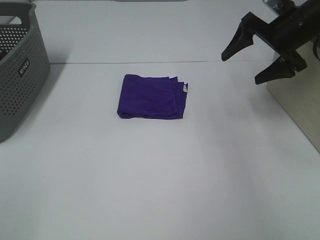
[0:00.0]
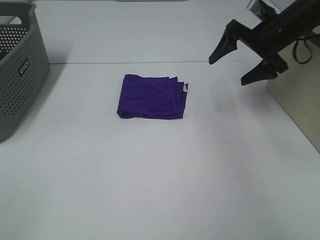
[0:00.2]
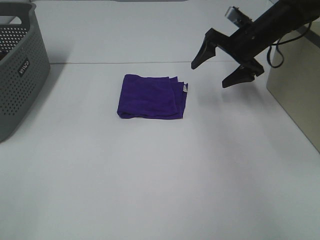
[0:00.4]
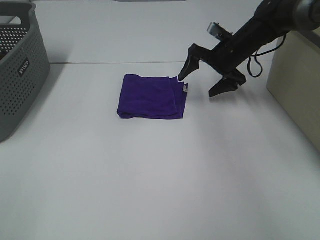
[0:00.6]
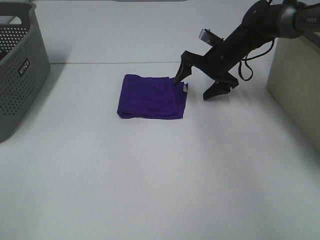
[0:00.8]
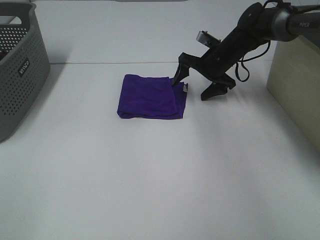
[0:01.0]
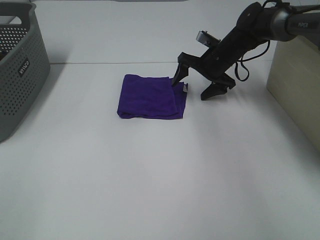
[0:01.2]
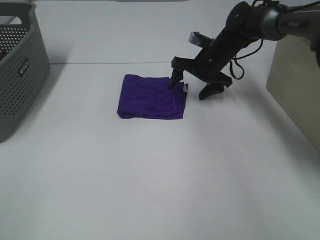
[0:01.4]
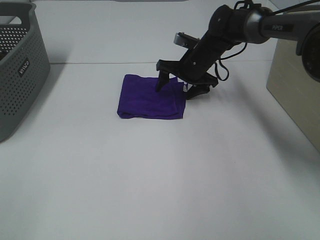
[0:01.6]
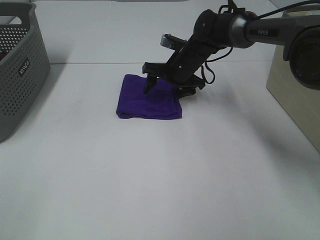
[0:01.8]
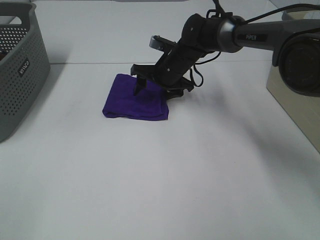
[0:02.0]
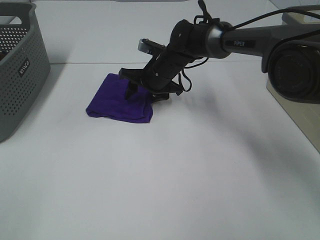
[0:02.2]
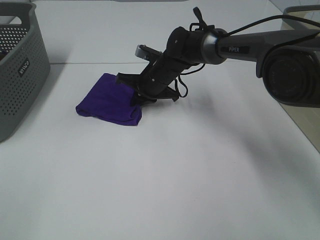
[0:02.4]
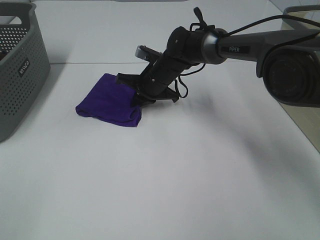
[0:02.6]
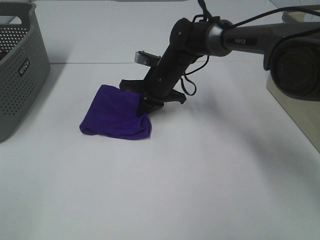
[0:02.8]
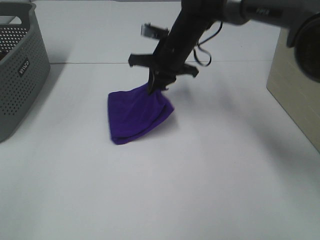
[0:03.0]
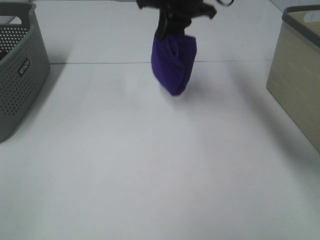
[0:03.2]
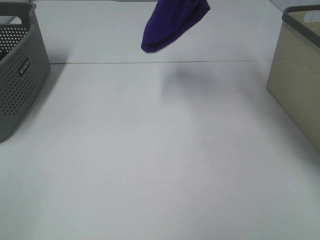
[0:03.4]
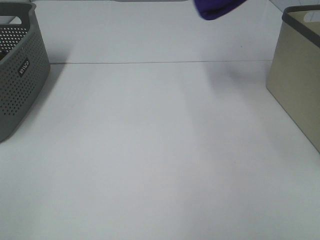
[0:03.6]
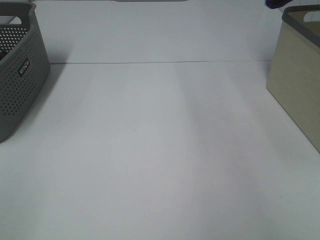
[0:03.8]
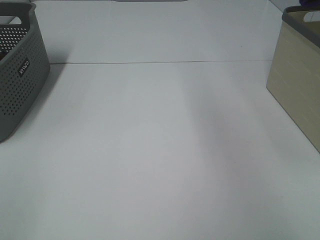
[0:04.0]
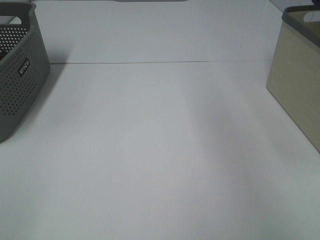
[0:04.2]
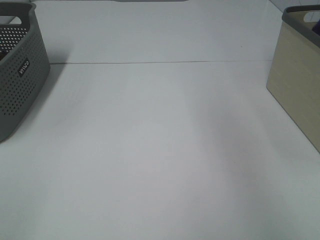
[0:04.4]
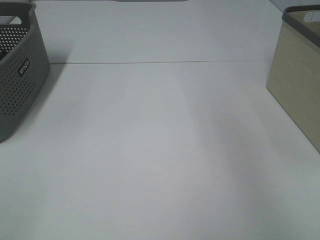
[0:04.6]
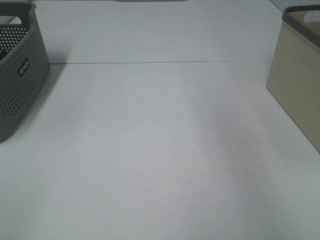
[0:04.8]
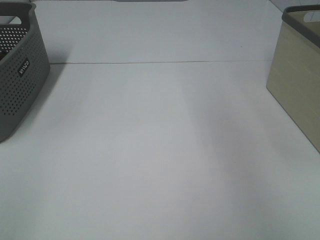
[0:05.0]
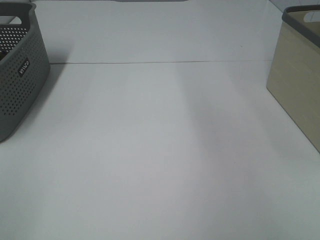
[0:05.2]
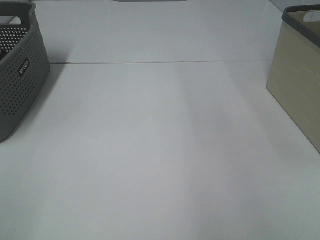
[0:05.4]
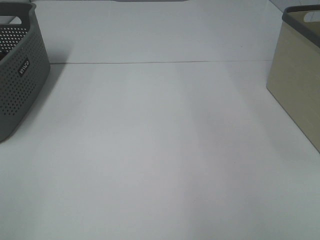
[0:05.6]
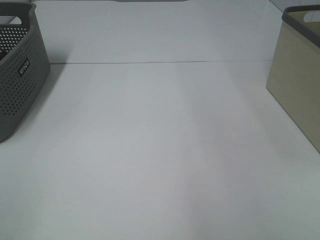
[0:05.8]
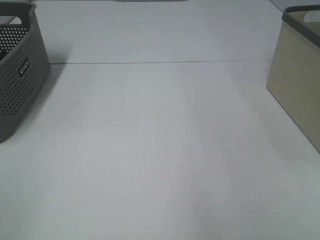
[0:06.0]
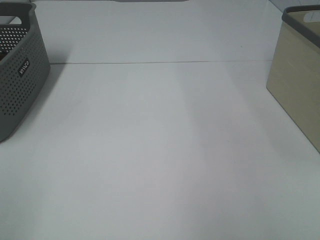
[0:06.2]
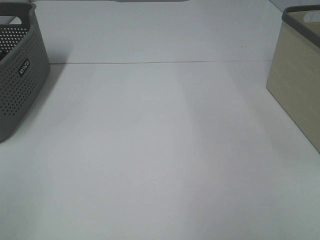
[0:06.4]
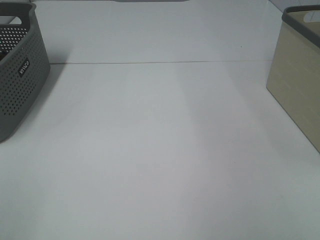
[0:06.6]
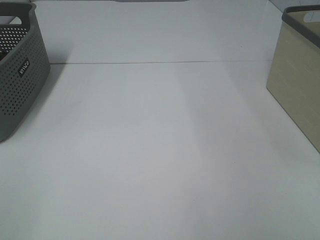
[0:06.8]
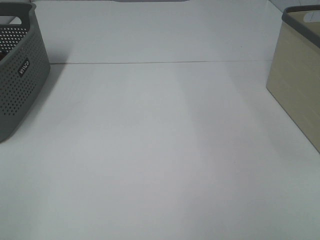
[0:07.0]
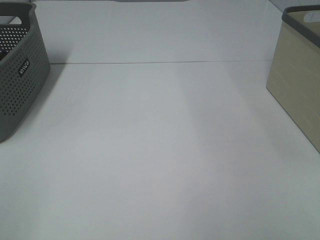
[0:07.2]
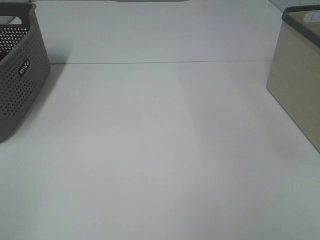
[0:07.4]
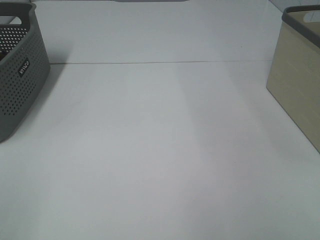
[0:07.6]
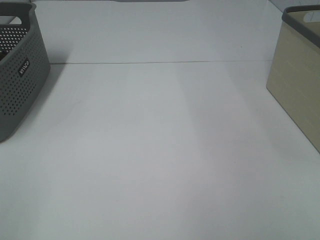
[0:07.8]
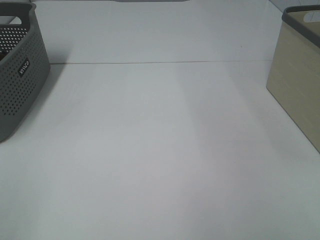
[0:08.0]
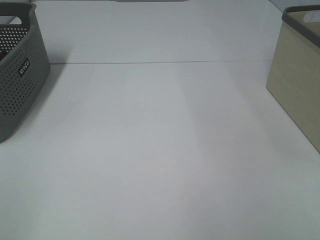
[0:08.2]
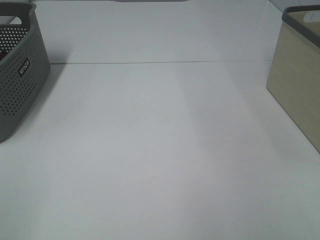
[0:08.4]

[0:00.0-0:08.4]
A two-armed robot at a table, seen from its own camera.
Step, 0:00.0 to 0:02.4: Right hand: grab the folded purple towel.
Step, 0:02.6 to 0:04.6: Right hand: place the purple towel in right basket.
0:00.0 to 0:01.4: The right gripper heads to the left, downward and forward, covering some 20 cm.
0:01.4 to 0:02.8: The right gripper heads to the left and backward, covering roughly 10 cm, and closes up.
0:02.8 to 0:04.2: The right gripper heads upward and to the right, covering approximately 50 cm.
0:07.0 to 0:08.4: Both grippers stay put.

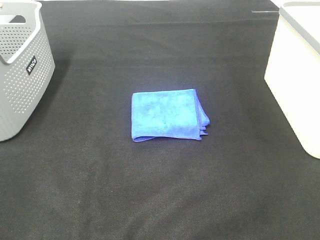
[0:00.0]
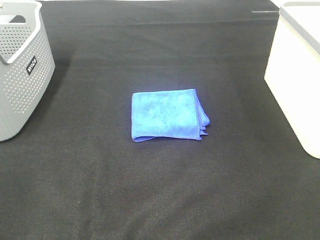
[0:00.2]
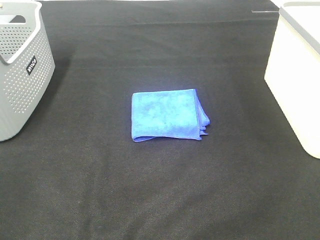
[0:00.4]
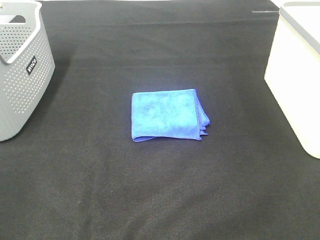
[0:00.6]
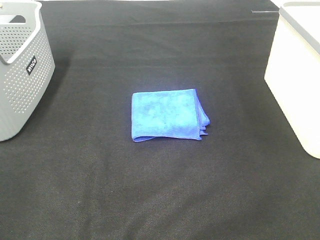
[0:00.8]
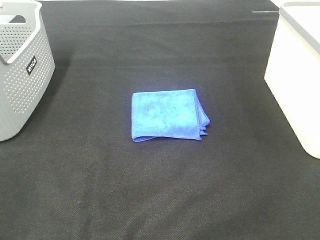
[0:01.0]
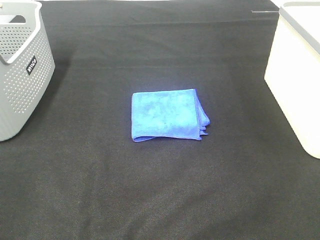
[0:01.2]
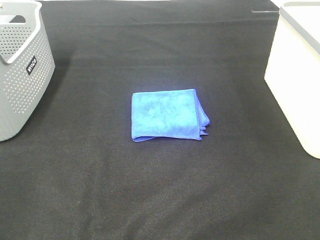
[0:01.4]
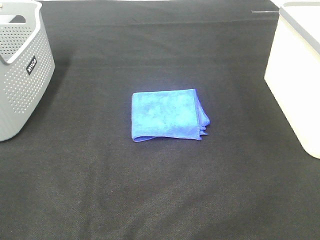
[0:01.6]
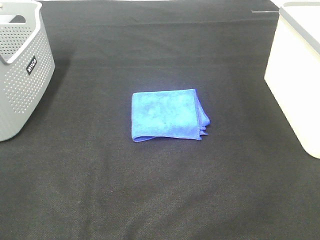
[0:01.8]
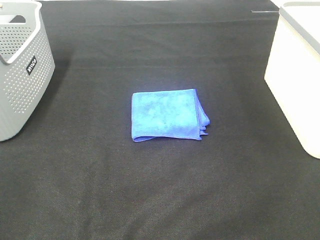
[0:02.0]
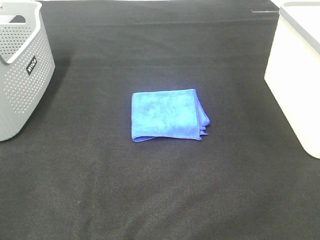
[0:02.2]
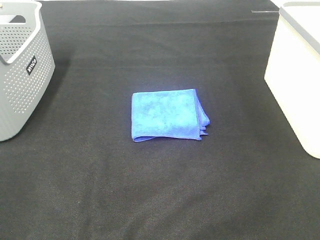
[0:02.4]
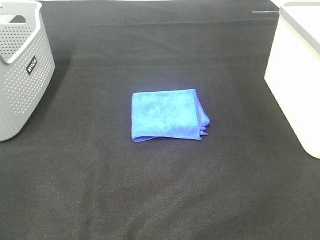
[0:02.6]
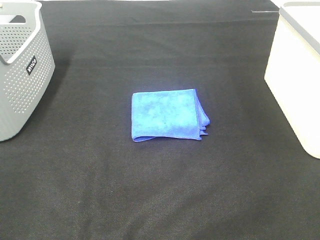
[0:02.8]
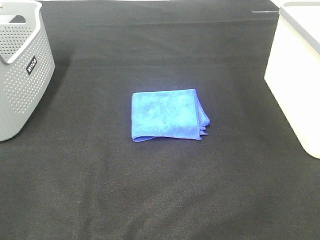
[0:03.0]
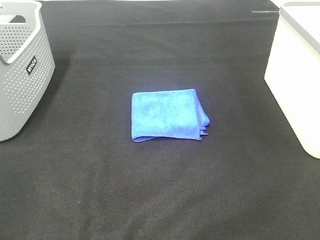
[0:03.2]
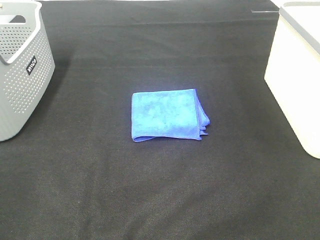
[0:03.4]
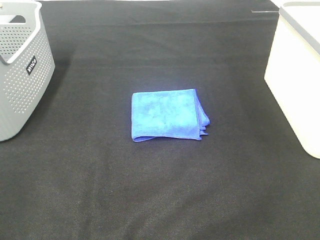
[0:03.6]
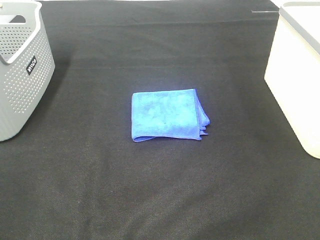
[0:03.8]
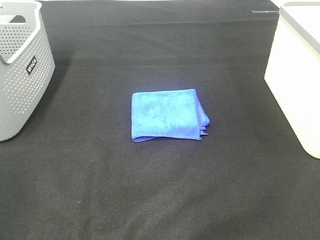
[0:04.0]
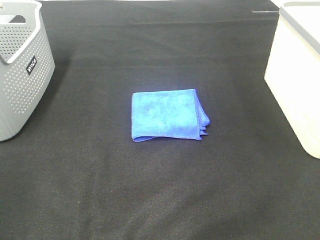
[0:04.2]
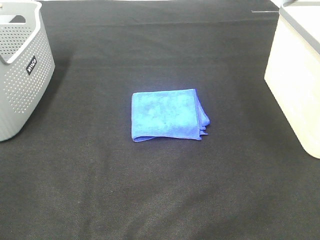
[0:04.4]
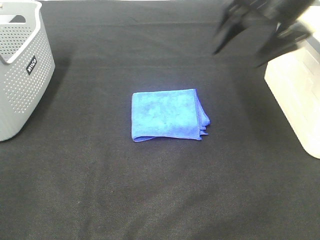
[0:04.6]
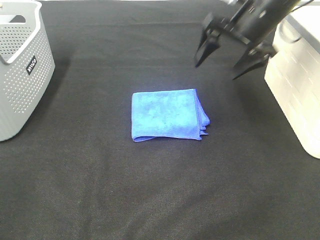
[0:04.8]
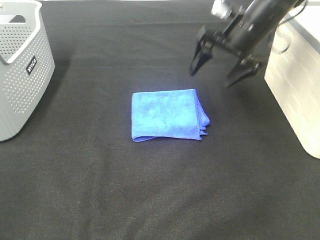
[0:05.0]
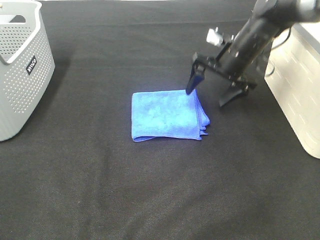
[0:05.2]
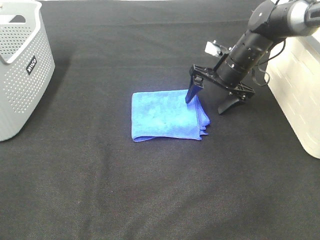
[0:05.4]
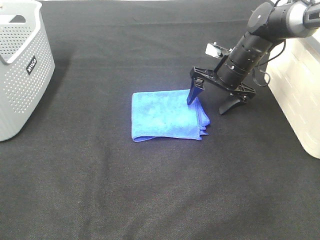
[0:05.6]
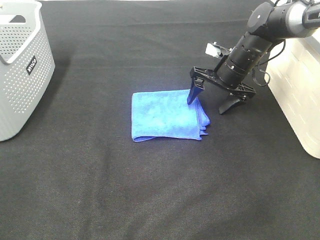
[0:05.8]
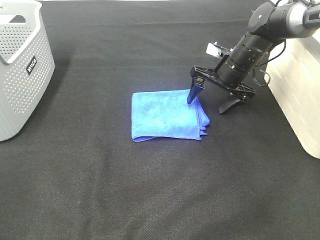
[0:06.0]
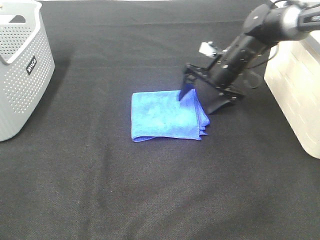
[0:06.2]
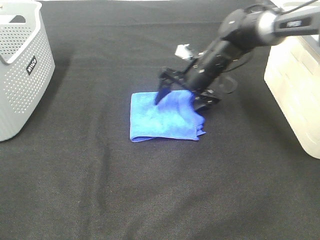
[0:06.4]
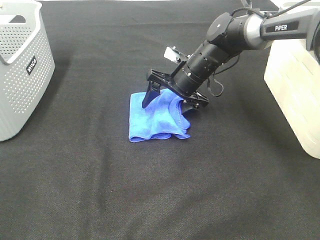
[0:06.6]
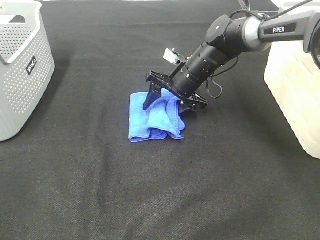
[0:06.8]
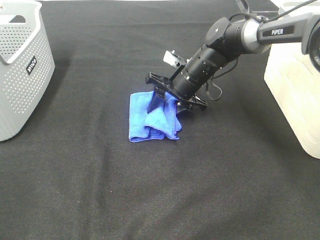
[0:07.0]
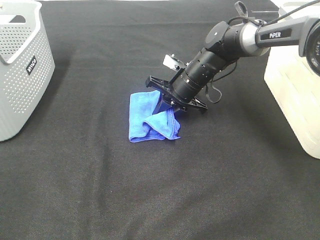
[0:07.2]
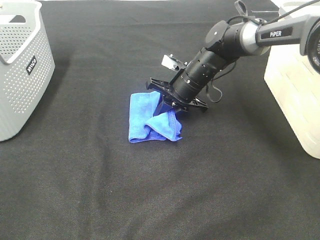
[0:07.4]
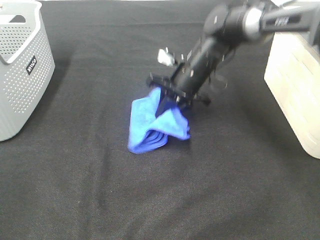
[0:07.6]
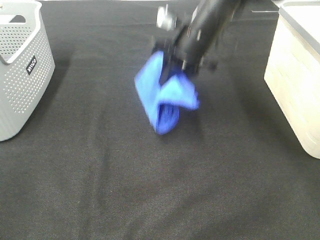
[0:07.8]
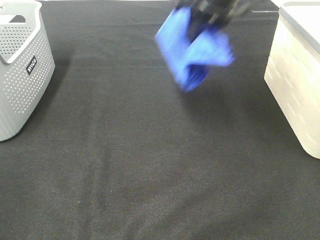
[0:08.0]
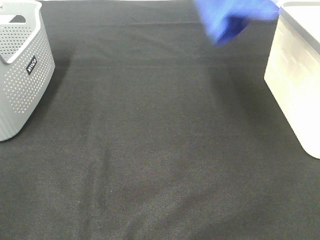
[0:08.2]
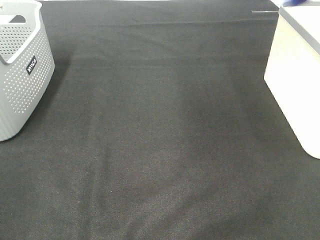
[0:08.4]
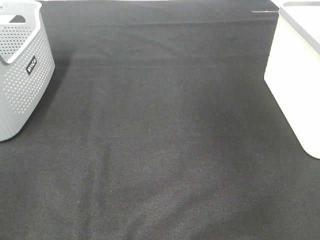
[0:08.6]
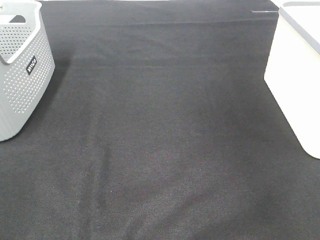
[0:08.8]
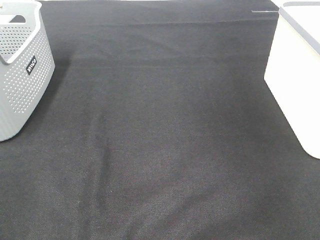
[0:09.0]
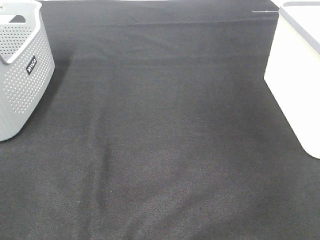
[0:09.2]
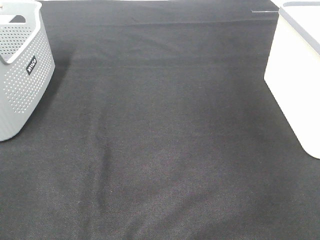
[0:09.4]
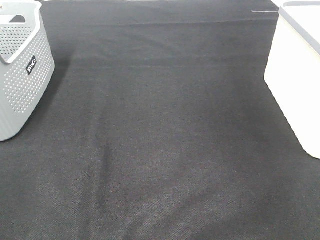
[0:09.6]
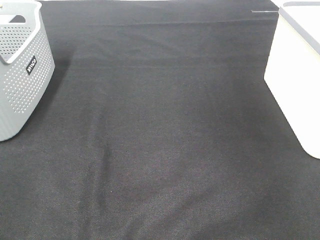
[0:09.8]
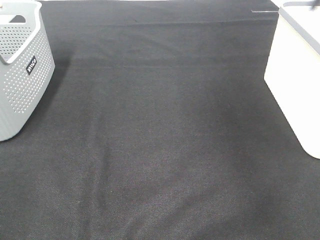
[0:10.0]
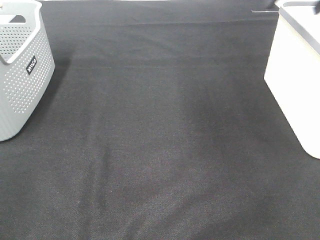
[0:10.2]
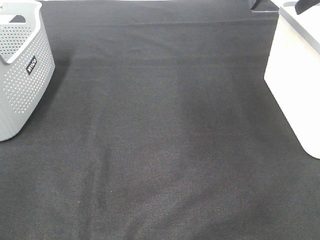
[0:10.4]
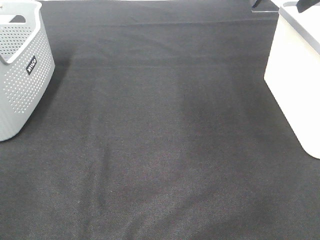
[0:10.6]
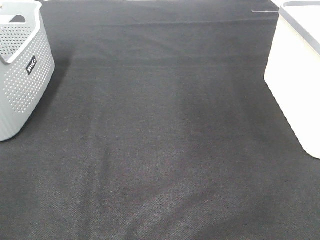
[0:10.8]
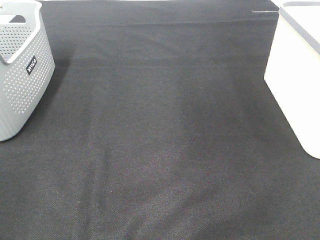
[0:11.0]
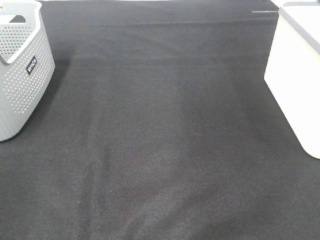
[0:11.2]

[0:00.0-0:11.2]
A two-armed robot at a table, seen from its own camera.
Step, 0:00.0 to 0:07.2: Right hand: grab the folded blue towel.
Step, 0:07.4 to 0:09.4: Right hand: place the blue towel in right basket.
0:00.0 to 0:03.2: The two grippers keep their place.
0:03.2 to 0:04.8: The right gripper is displaced forward by about 40 cm.
0:04.8 to 0:06.4: The right gripper heads downward and to the left, covering some 15 cm.
0:06.4 to 0:08.0: The right gripper heads upward, covering some 25 cm, and closes up.
0:08.0 to 0:09.6: The right gripper goes roughly 30 cm to the right, and opens up.

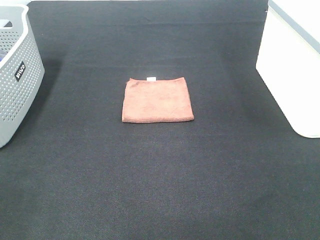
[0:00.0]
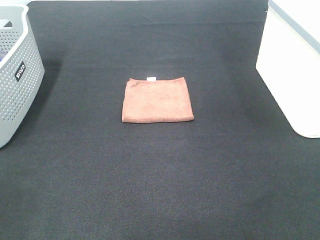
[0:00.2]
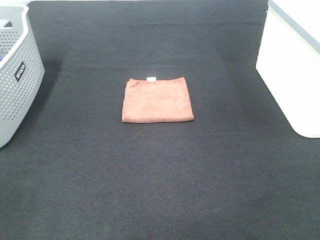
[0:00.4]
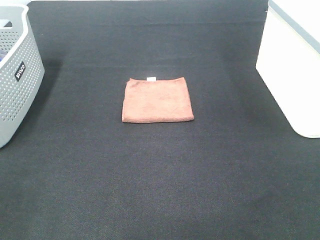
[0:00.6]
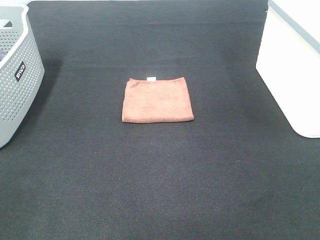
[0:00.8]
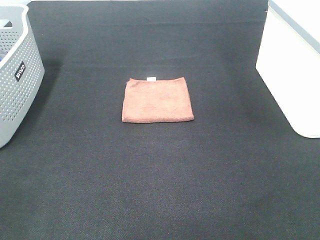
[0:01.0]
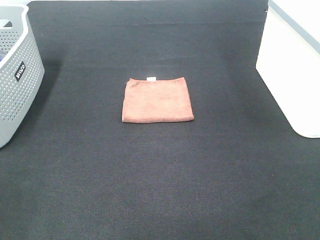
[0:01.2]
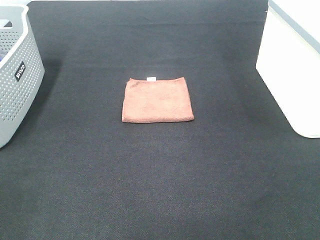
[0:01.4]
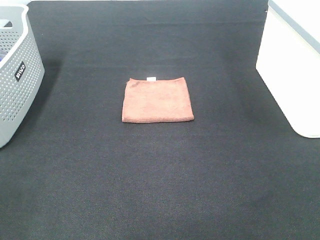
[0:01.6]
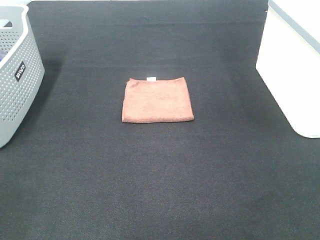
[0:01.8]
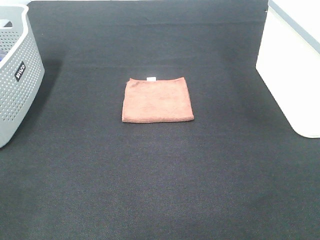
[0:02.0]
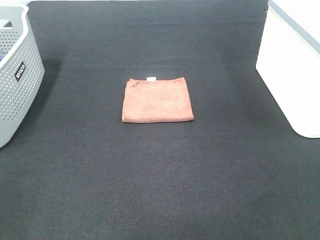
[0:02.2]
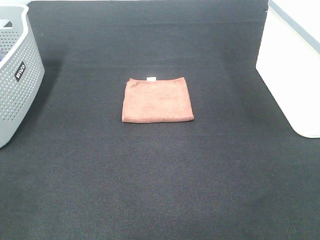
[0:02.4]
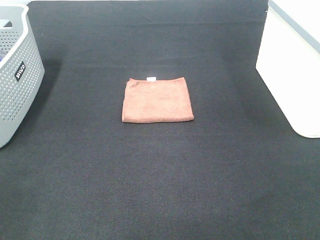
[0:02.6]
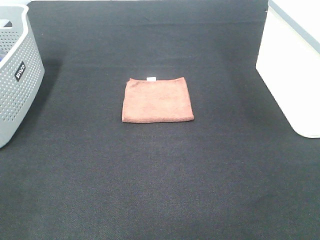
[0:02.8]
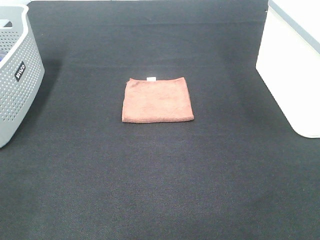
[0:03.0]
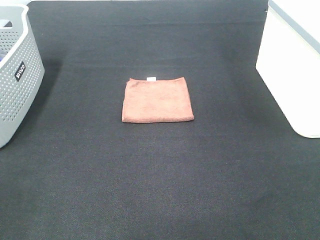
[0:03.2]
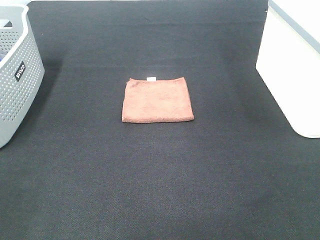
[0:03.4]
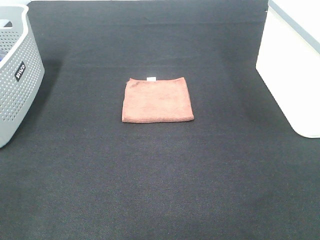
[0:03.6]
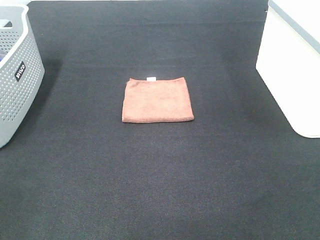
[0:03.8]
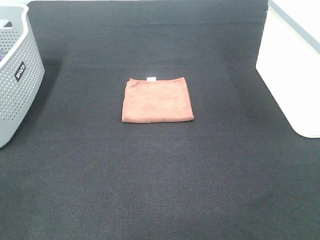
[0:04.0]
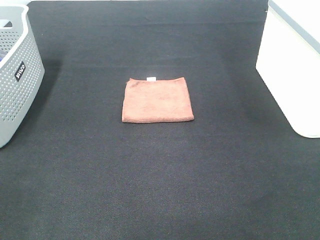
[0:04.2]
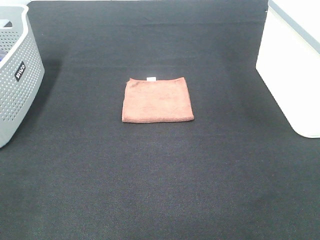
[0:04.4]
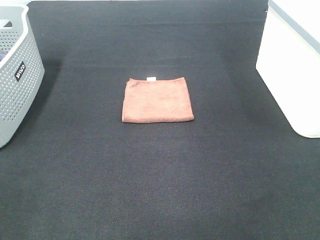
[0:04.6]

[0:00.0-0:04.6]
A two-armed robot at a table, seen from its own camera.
0:00.0 to 0:03.0: Both grippers stay about where they are.
